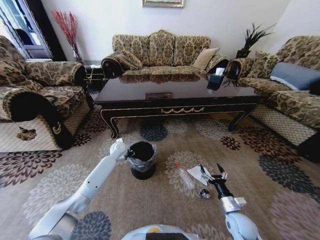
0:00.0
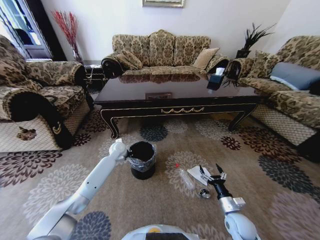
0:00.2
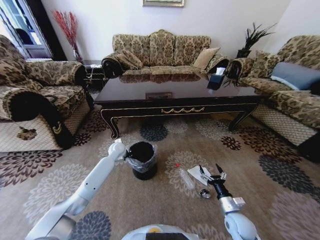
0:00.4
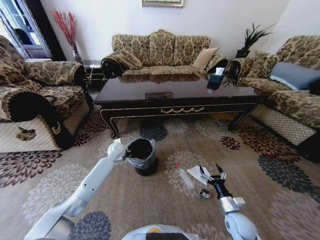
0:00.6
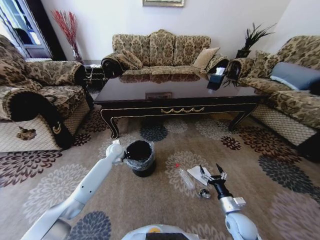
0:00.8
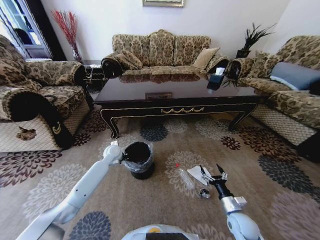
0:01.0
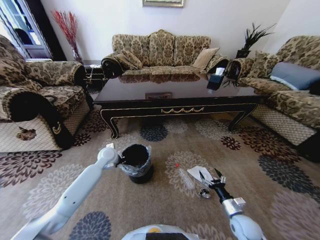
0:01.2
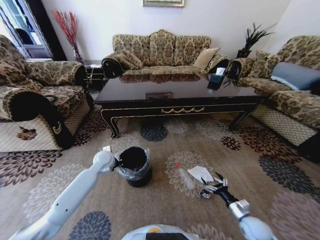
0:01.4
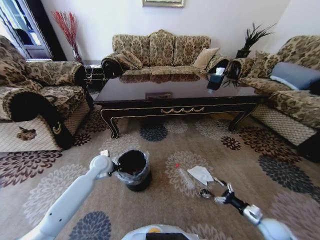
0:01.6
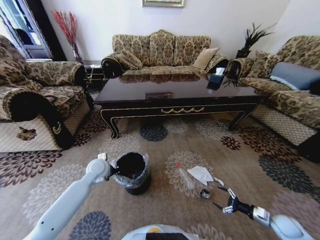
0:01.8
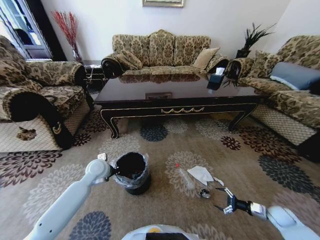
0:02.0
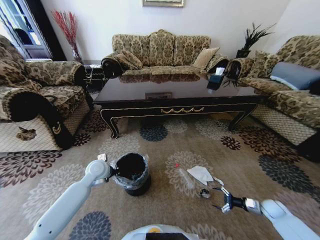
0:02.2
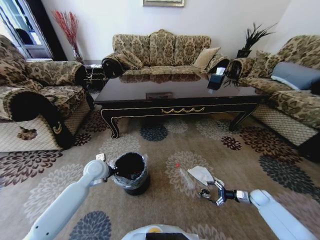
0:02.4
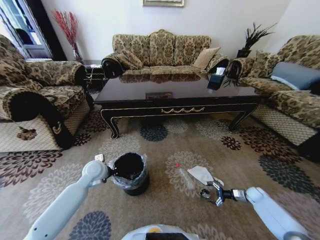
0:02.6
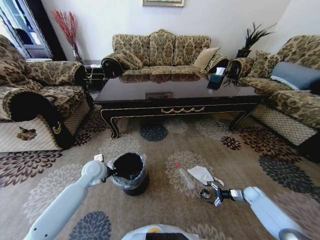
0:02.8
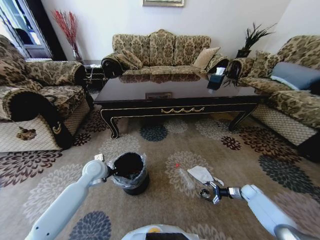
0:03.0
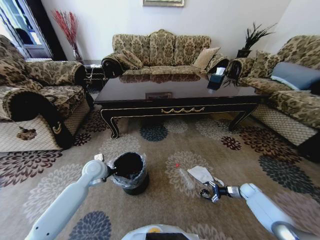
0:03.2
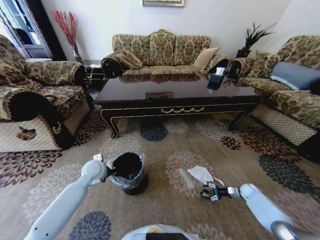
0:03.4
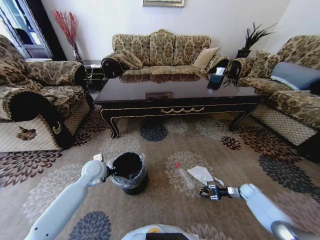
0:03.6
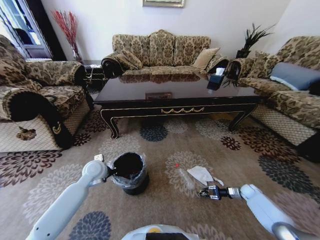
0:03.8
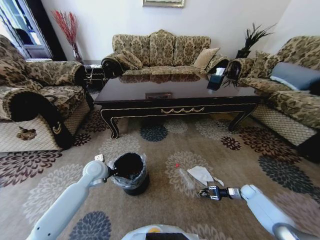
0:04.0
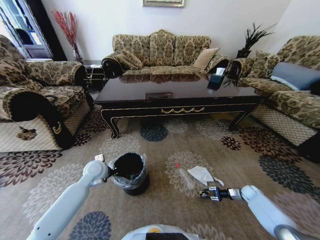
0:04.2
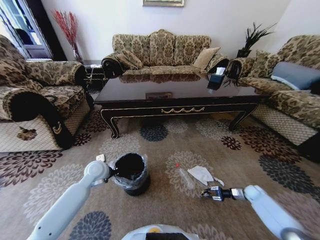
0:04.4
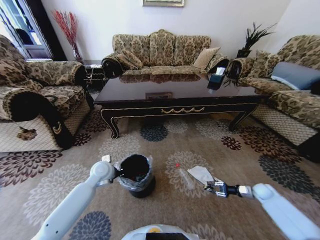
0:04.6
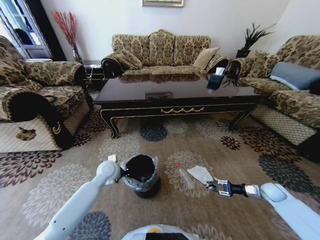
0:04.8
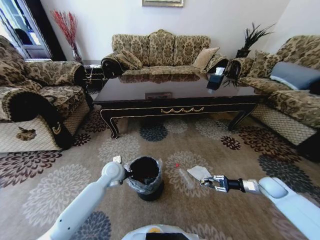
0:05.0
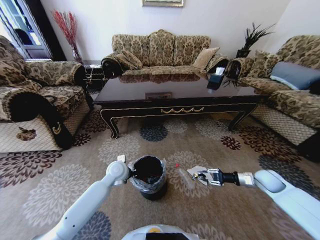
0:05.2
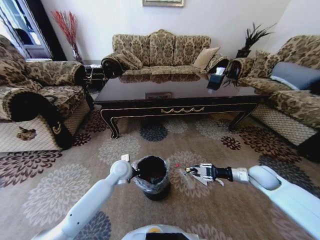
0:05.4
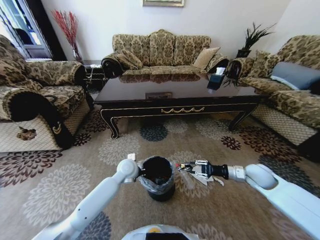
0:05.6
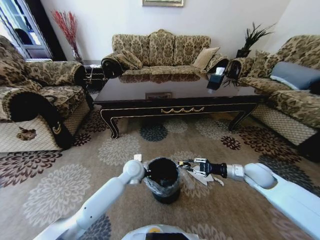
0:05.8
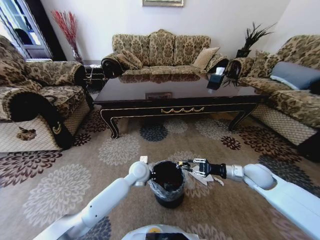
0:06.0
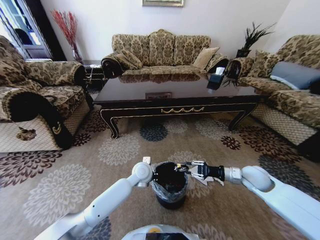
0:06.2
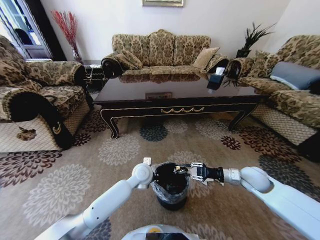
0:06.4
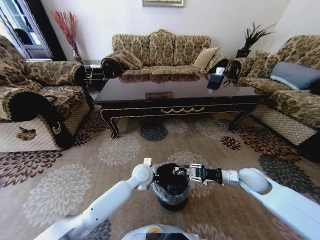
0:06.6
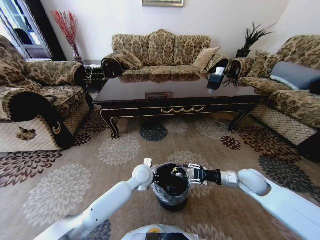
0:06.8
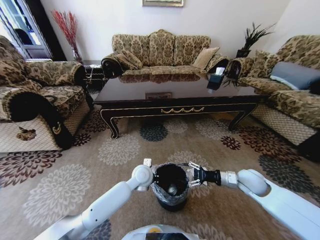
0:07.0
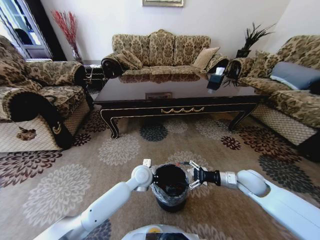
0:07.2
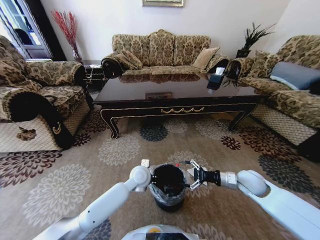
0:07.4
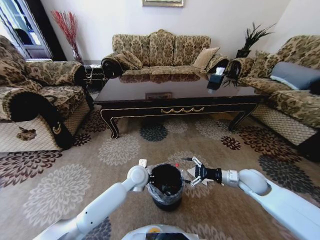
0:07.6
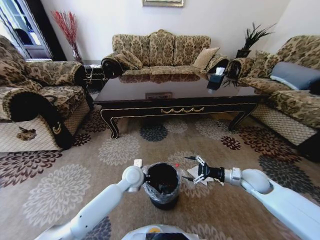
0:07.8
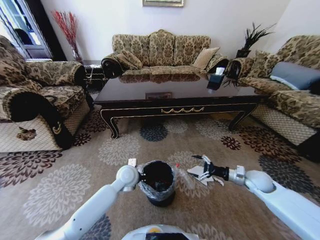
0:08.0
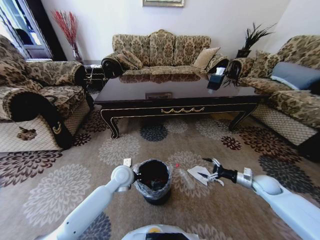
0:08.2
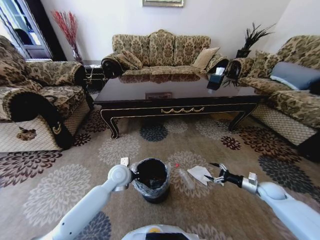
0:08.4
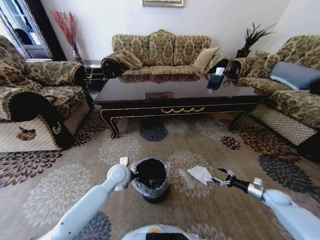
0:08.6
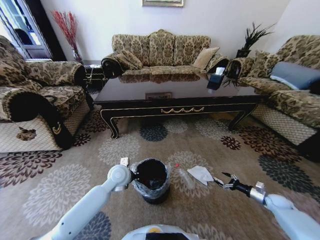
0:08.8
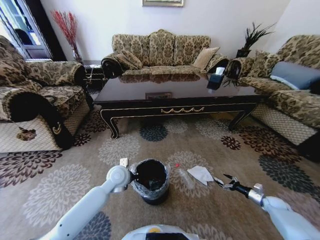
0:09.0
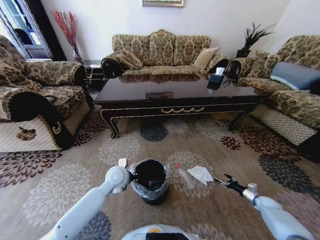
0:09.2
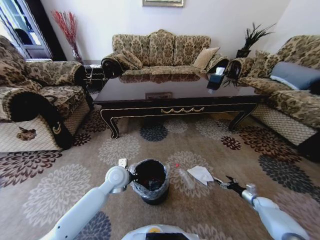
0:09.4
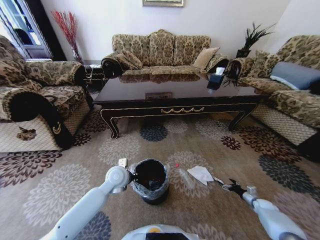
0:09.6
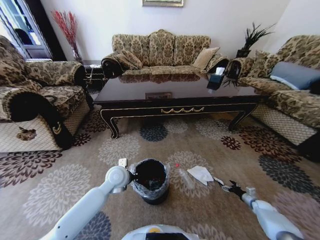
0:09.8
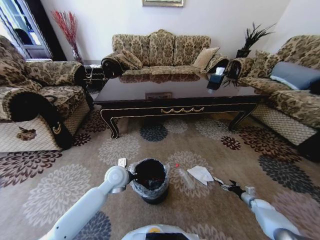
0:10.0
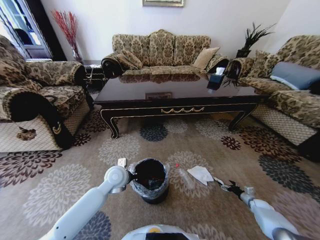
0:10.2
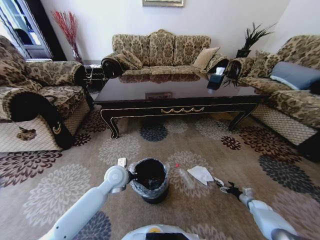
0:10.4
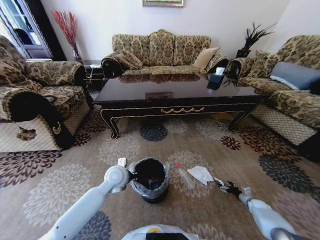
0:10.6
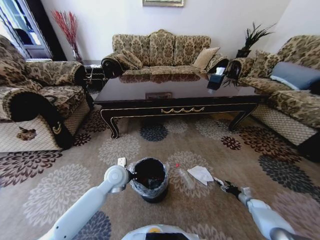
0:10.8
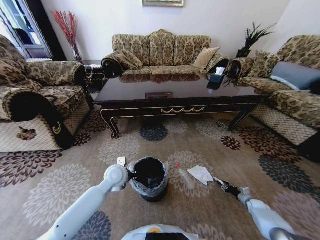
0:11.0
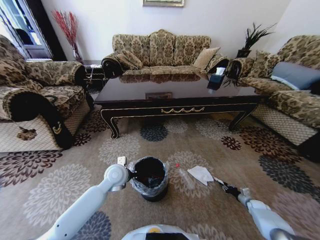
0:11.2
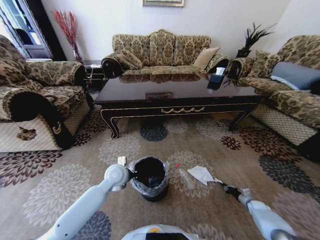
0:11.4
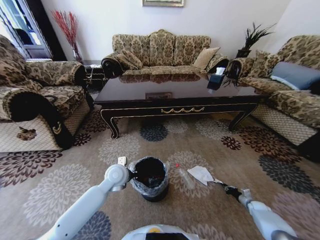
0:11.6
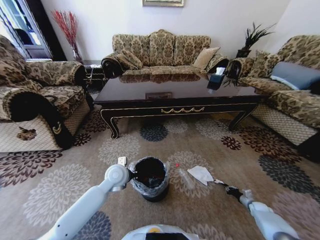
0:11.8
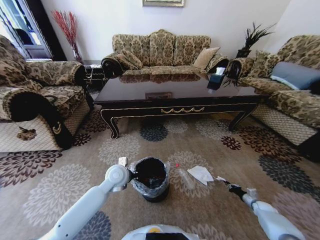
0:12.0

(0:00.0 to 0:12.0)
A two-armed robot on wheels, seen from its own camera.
Task of the whole recording: Move to the front of the table and pick up the trash from the floor, then place it into the trash bin.
0:00.0 - 0:01.6: The right gripper goes roughly 15 cm to the right, while the left gripper moves backward and to the left, some 10 cm, and closes.
0:01.6 - 0:03.0: The right gripper is displaced forward by roughly 15 cm.
0:03.0 - 0:04.4: The right gripper closes up.
0:04.4 - 0:06.0: The left gripper heads to the right, covering approximately 20 cm; the right gripper moves upward and to the left, some 30 cm.
0:06.0 - 0:07.6: The right gripper opens up.
0:07.6 - 0:09.0: The left gripper is displaced to the left by some 10 cm. The right gripper moves to the right and downward, roughly 35 cm.
0:09.0 - 0:10.4: The right gripper heads downward, covering roughly 5 cm.
0:10.4 - 0:12.0: The right gripper closes up.

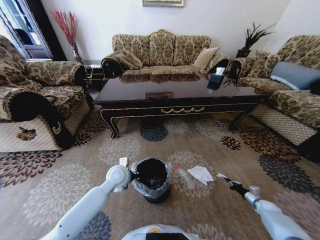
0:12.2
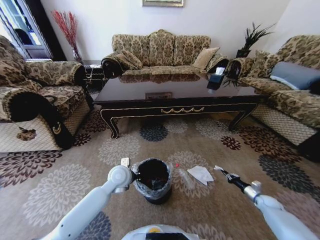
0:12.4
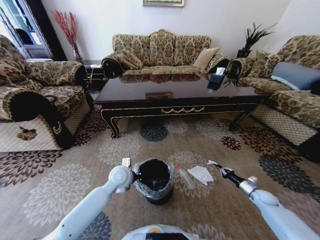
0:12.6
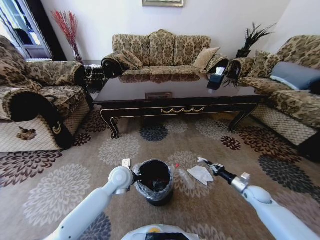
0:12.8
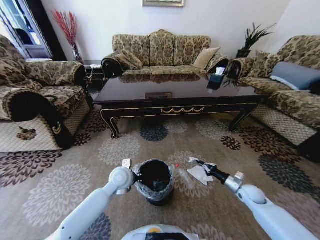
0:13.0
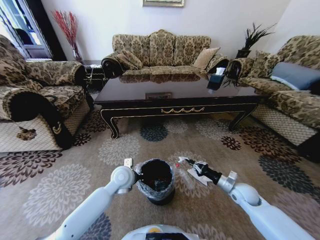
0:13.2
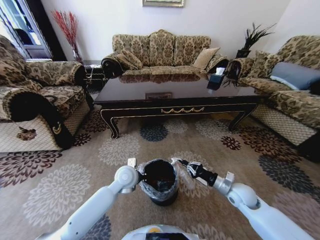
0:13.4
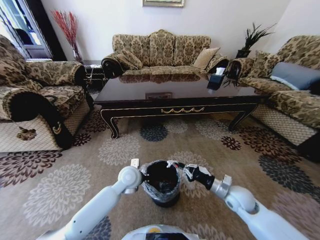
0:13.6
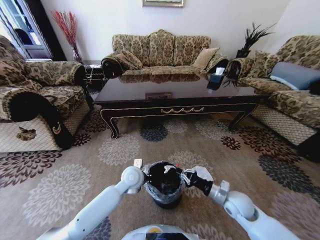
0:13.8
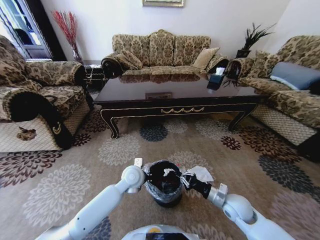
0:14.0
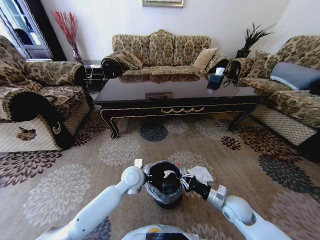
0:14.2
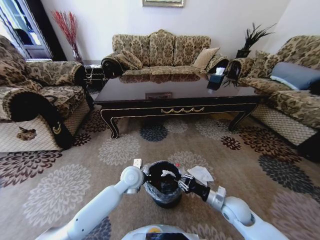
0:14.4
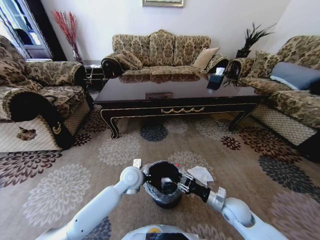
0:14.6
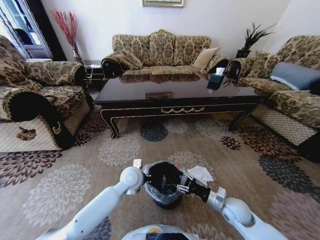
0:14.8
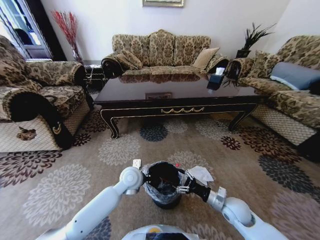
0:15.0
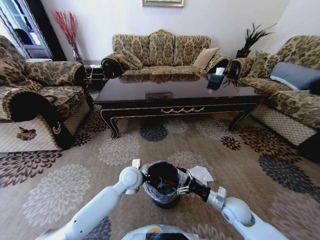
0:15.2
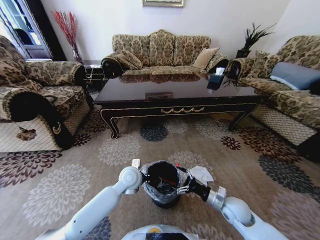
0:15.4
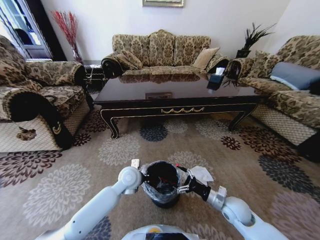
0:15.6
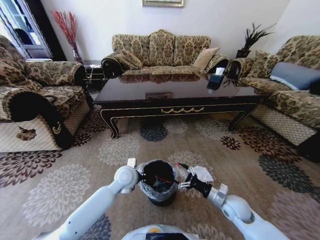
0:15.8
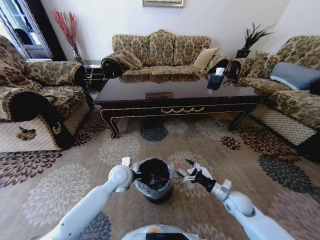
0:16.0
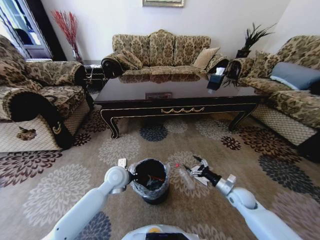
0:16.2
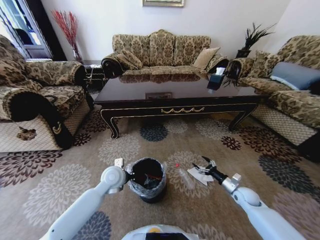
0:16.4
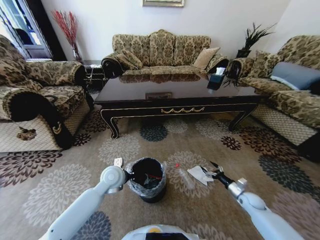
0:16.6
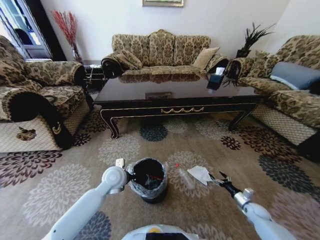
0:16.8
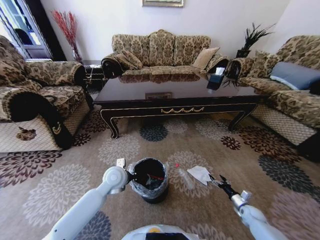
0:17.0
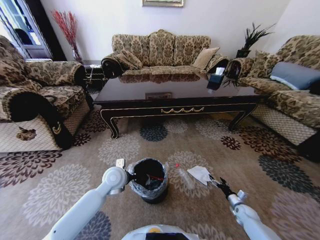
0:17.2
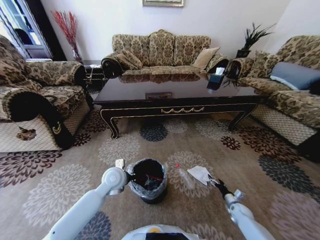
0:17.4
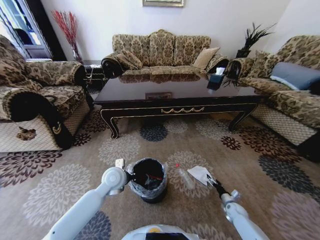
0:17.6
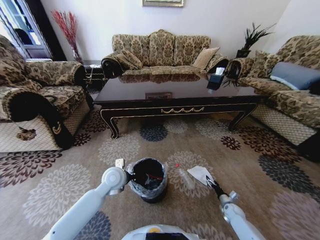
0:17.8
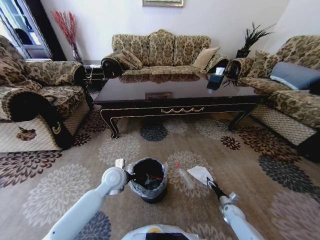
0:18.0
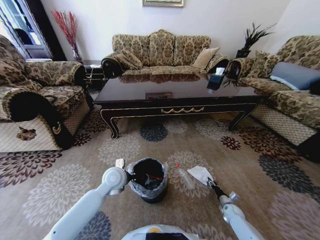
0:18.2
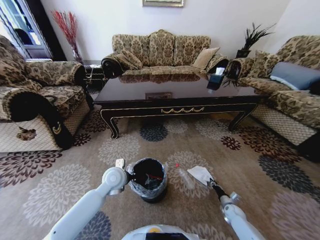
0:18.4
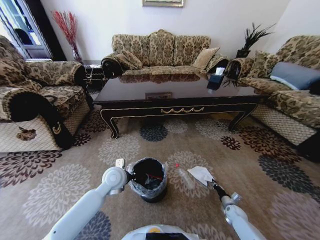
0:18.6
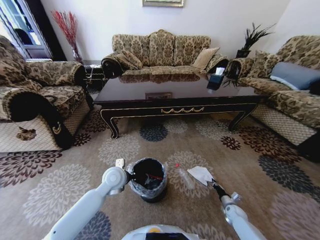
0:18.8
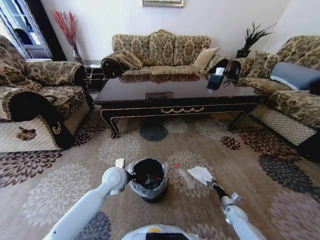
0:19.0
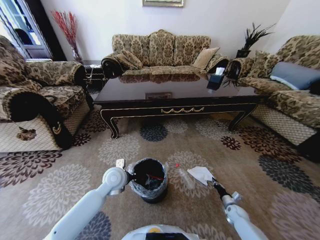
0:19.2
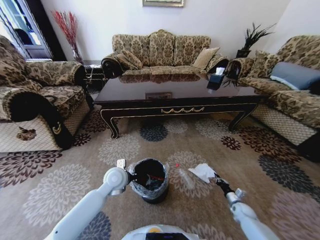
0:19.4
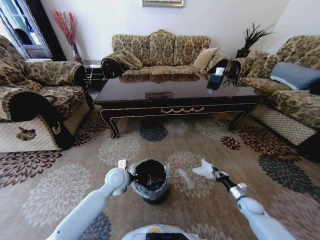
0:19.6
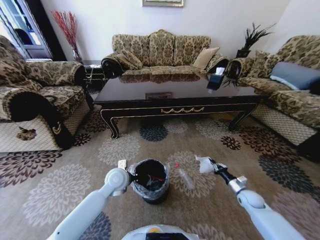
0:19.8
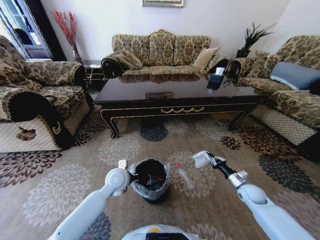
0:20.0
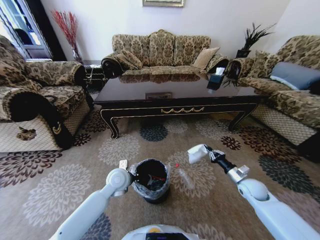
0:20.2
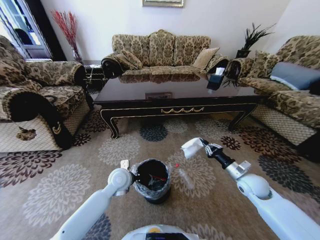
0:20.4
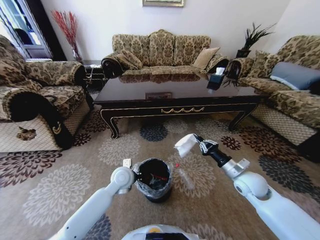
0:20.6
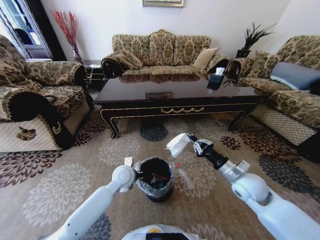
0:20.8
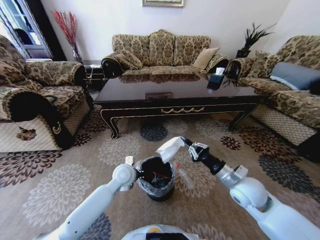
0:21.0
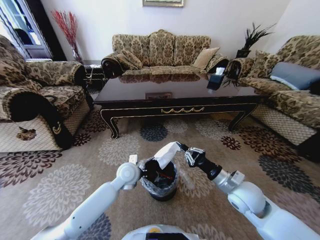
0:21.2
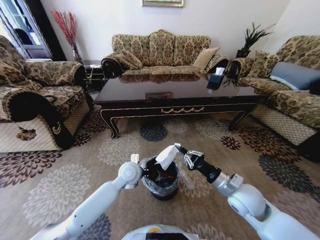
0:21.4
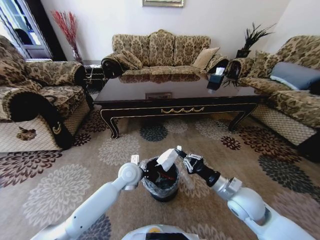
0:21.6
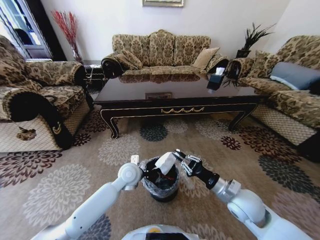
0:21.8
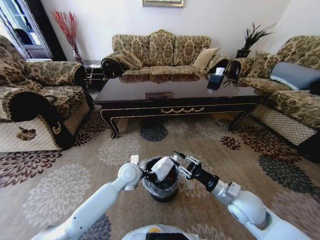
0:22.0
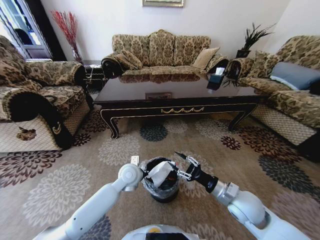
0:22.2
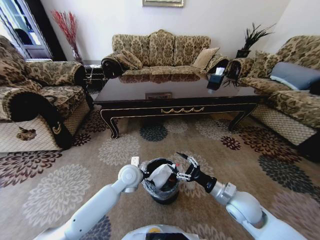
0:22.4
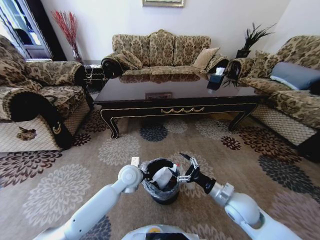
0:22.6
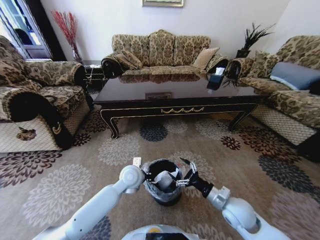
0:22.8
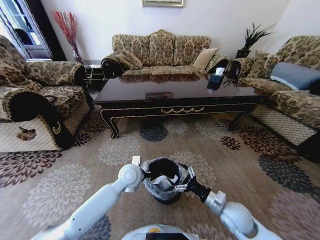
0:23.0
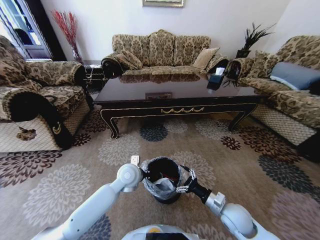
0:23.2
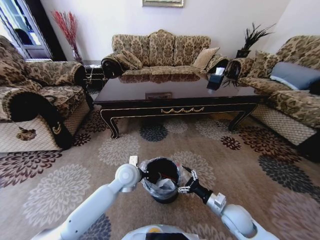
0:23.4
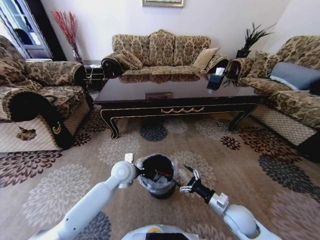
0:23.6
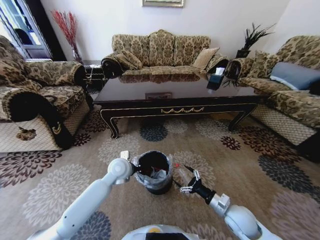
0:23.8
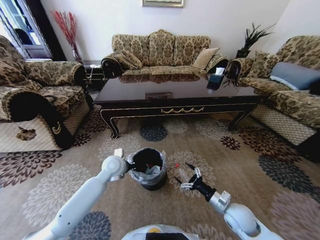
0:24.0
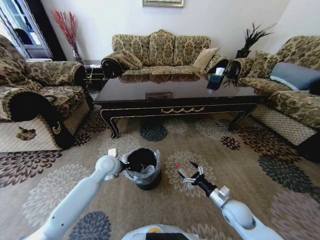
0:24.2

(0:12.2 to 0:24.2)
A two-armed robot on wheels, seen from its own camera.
Task of the whole recording: Move to the front of the table and pick up the trash from the floor, then place it into the trash bin.
0:12.2 - 0:13.8: The left gripper is displaced to the right by some 5 cm; the right gripper travels to the left and upward by some 35 cm.
0:13.8 - 0:15.2: The right gripper opens.
0:15.2 - 0:16.6: The right gripper is displaced to the right and downward by about 20 cm, while the left gripper shifts approximately 10 cm to the left.
0:16.6 - 0:18.2: The right gripper is displaced downward by some 10 cm, and closes its fingers.
0:18.2 - 0:19.8: The right gripper shifts some 15 cm upward, and closes up.
0:19.8 - 0:21.2: The right gripper heads upward and to the left, covering some 30 cm. Meanwhile the left gripper shifts by roughly 5 cm.
0:21.2 - 0:22.6: The right gripper heads downward, covering roughly 5 cm, and opens up.
0:22.6 - 0:24.2: The left gripper is displaced to the left by roughly 10 cm. The right gripper heads downward, covering approximately 10 cm.
